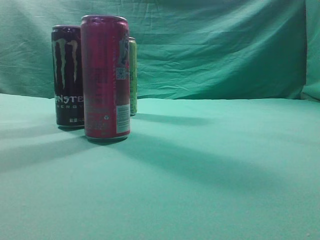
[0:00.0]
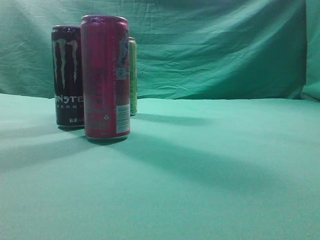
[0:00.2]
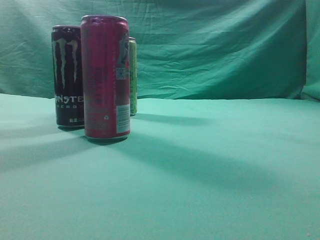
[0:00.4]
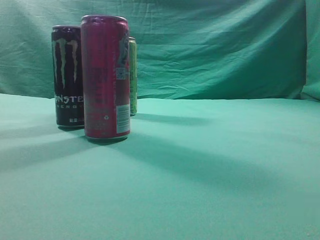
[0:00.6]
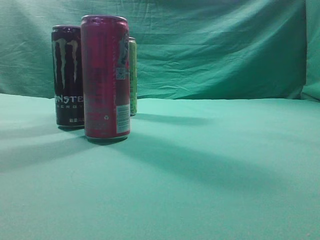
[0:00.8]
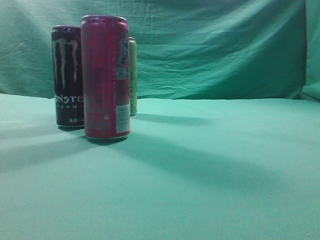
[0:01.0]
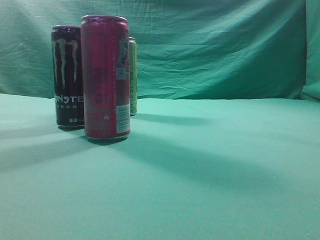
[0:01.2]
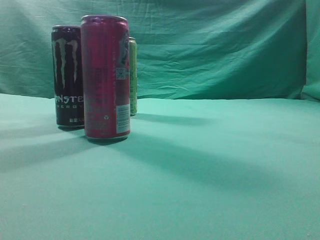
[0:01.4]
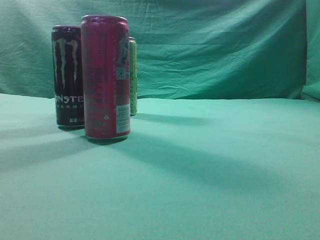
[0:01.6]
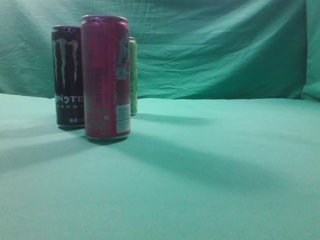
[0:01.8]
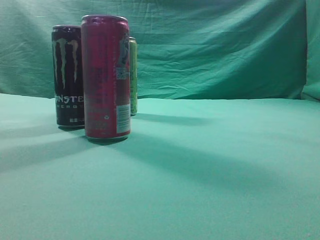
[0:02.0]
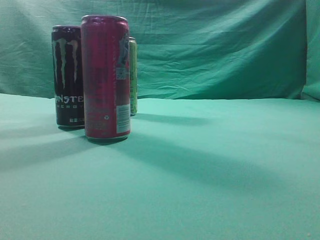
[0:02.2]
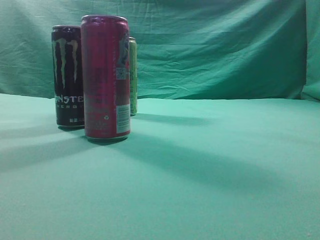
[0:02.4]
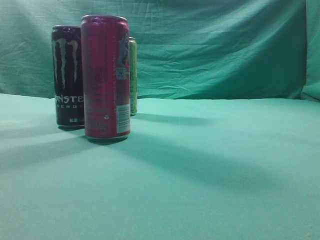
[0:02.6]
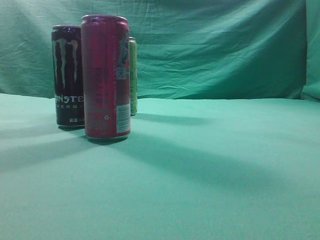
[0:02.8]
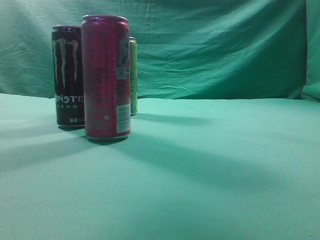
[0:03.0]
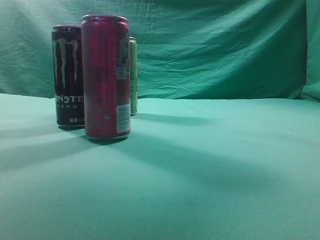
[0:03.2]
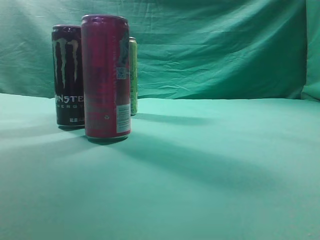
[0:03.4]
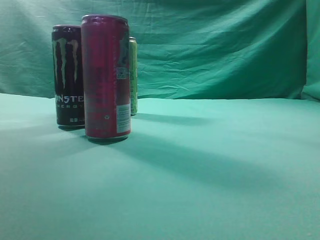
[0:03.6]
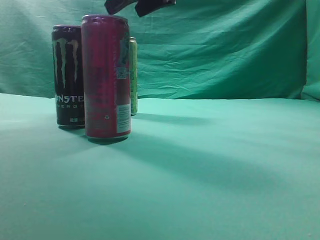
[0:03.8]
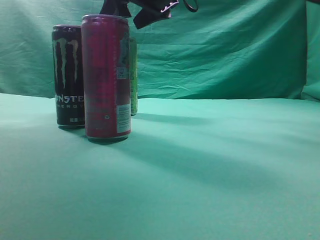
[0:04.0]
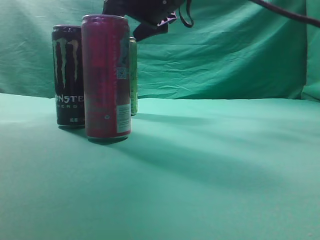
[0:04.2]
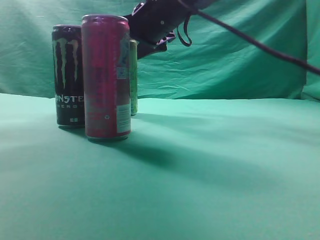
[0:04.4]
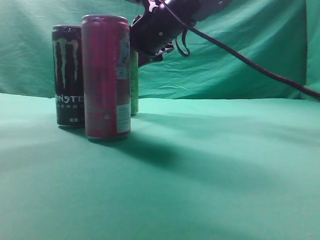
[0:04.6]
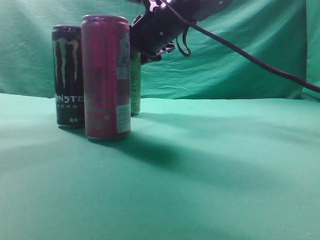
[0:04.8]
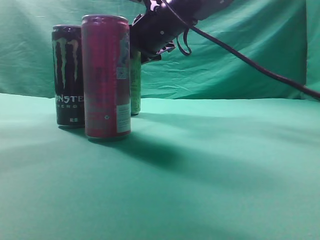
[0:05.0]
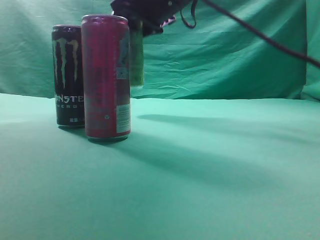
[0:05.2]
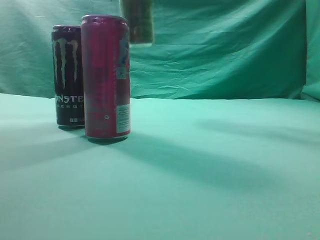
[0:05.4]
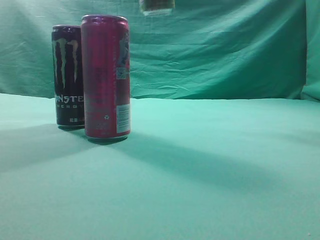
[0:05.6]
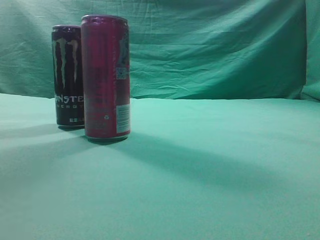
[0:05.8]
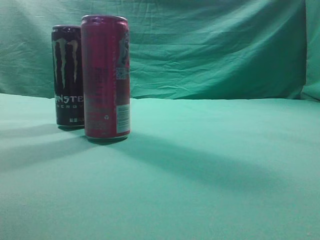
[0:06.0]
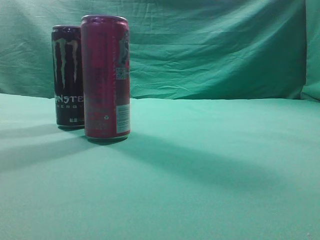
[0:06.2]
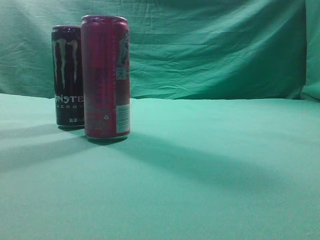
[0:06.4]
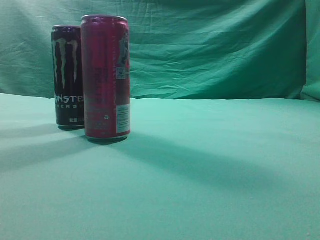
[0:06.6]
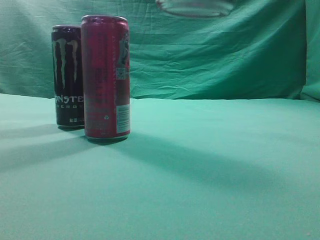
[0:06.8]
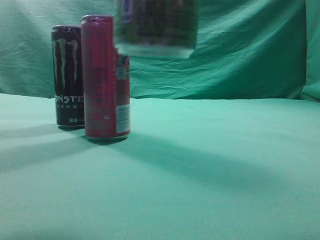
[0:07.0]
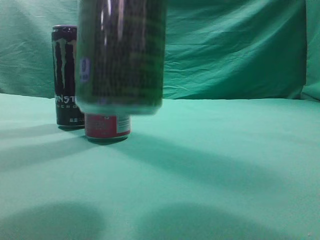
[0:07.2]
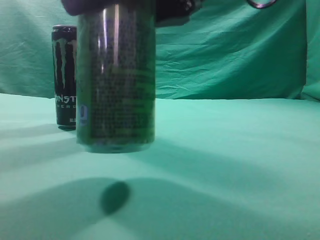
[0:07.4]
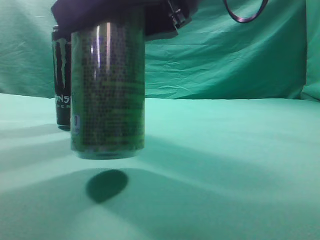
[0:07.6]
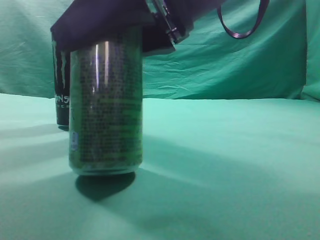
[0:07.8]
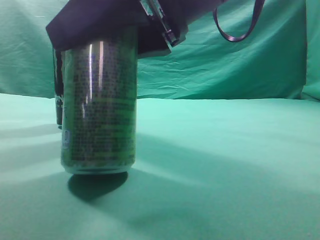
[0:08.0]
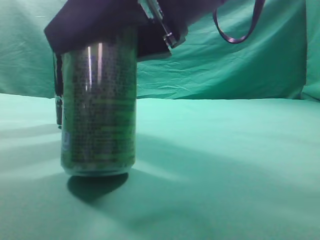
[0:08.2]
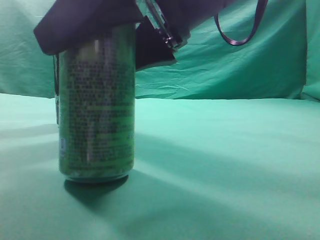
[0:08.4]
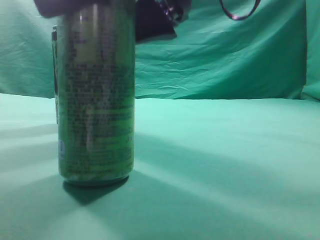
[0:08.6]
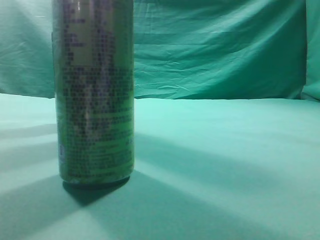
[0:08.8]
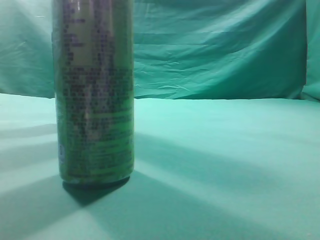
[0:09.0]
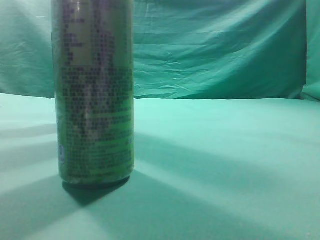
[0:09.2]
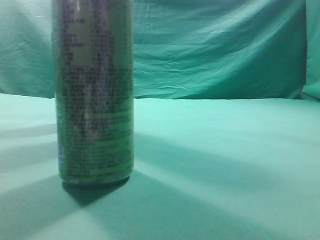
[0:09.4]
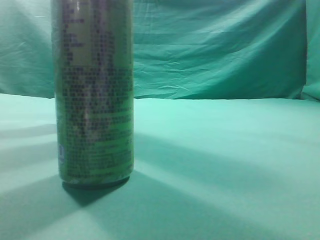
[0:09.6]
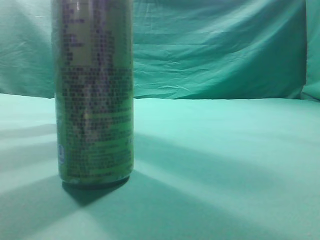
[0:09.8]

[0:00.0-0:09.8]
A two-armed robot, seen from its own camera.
Task of the whole recording: move one drink among three beverages.
Step, 0:00.0 to 0:05.0: Grasp the beverage bottle placed at the back of the desk.
Step, 0:05.2 to 0:08.6: Place the beverage bottle to the front of the table.
0:02.8 to 0:04.2: The right gripper shifts approximately 30 cm forward, to the left and downward, and opens.
0:04.2 to 0:05.6: The right gripper goes about 15 cm upward, backward and to the right.
0:05.6 to 0:07.0: The right gripper shifts roughly 20 cm backward and downward.
0:07.0 to 0:08.4: The right gripper is displaced downward, forward and to the left by about 10 cm.
0:08.4 to 0:09.8: The right gripper shifts about 25 cm upward, to the right and backward, and closes its fingers.
